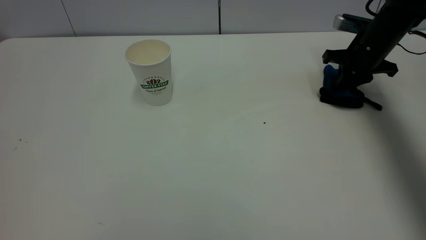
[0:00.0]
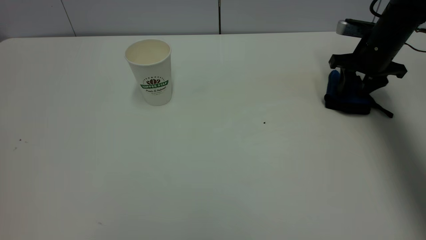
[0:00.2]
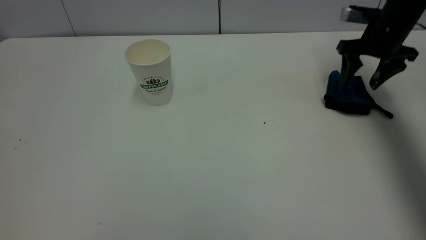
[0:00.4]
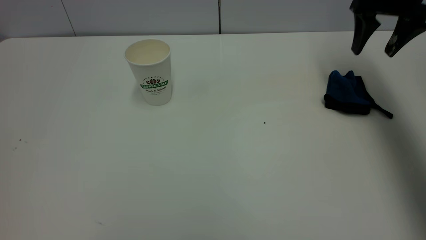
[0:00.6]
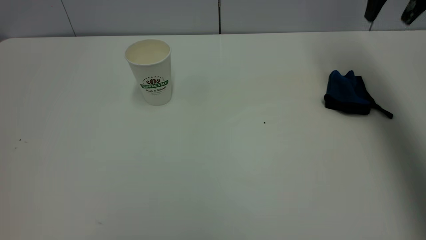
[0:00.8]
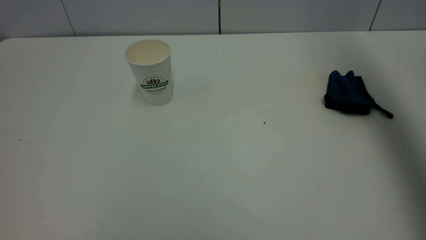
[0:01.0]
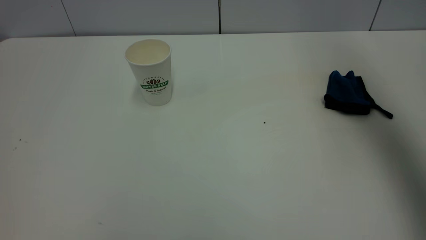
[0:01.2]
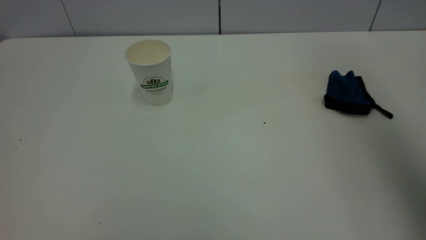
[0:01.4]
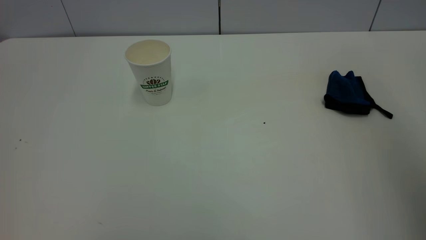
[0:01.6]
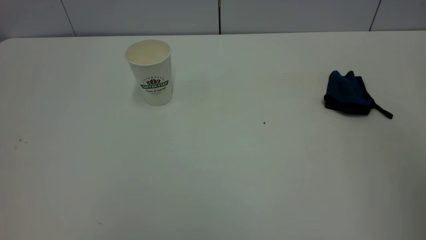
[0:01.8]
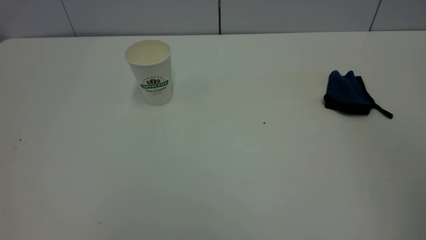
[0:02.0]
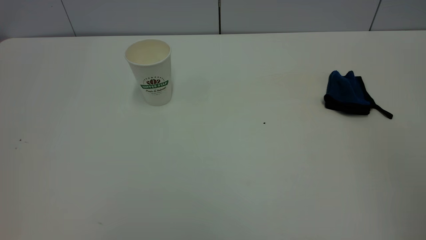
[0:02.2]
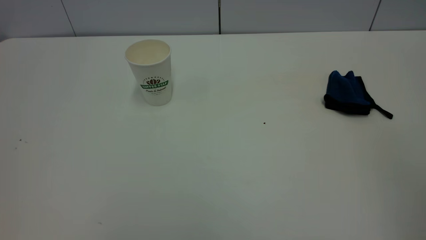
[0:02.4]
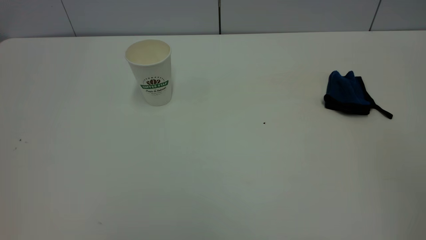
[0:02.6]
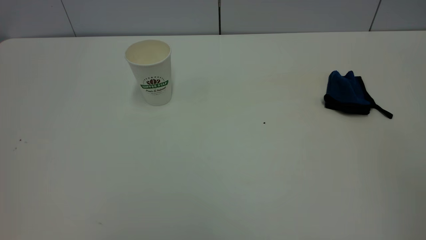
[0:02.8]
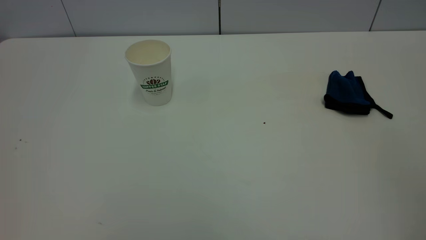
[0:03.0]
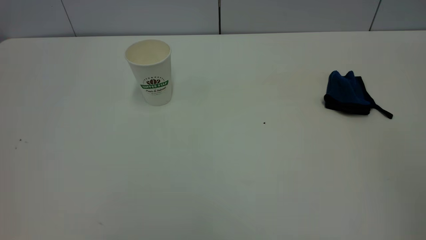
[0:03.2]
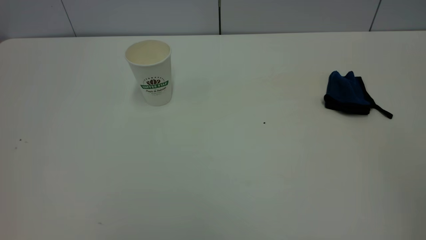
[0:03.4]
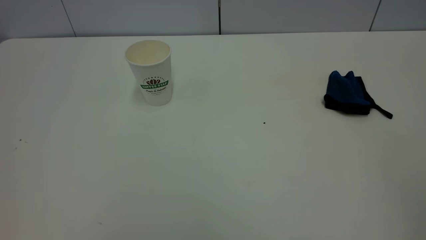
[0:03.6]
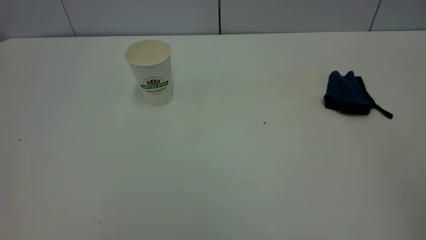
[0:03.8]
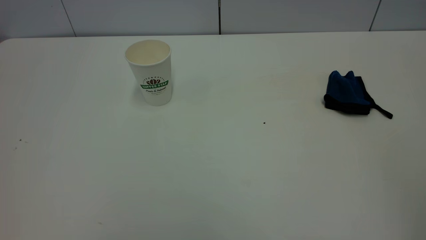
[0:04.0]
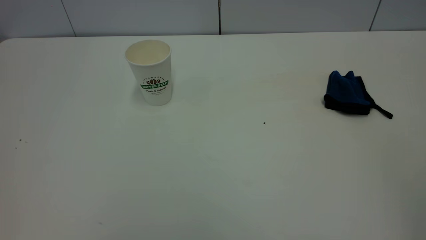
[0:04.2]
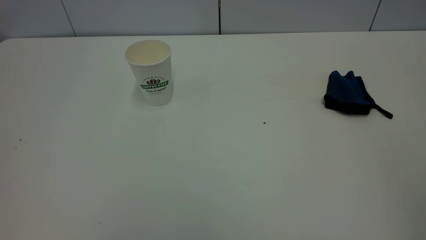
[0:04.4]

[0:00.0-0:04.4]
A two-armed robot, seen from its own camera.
Task of the whole recording: the left gripper pick up the fallen cup and place it upright, the right gripper grasp the blue rag and wipe the tea stain on the table, the right gripper put the blue rag back in its original position.
0:00.0 to 0:01.4: The right gripper is displaced upward and backward by roughly 50 cm, and opens.
0:01.4 to 0:03.0: The right gripper travels backward and downward by some 25 cm, and closes its fingers.
